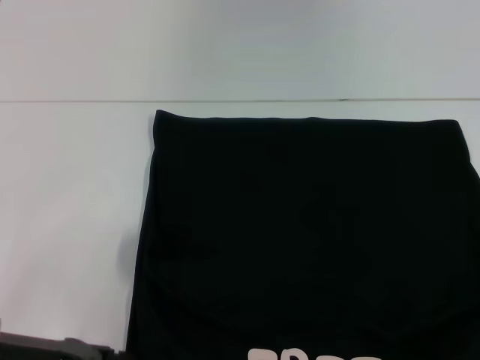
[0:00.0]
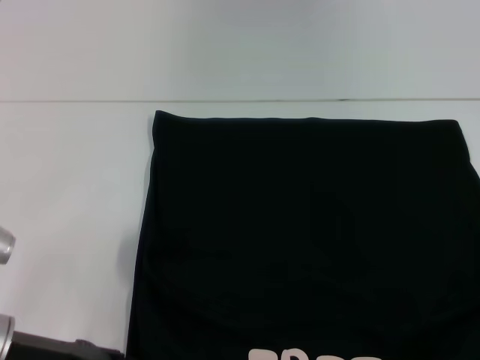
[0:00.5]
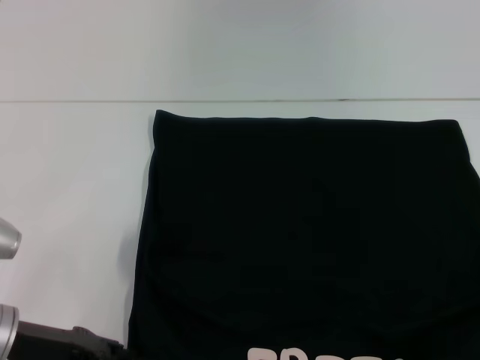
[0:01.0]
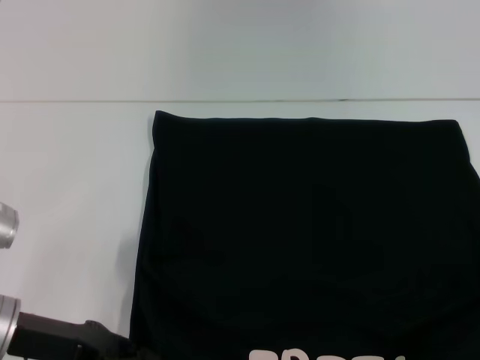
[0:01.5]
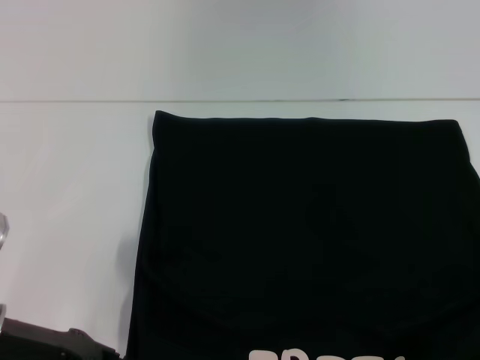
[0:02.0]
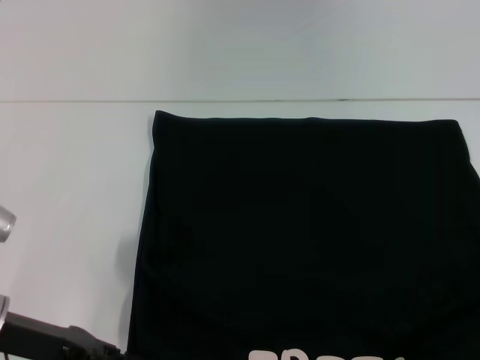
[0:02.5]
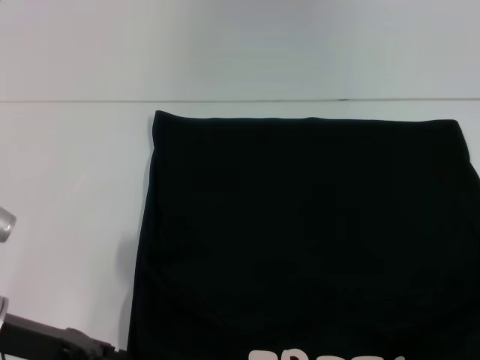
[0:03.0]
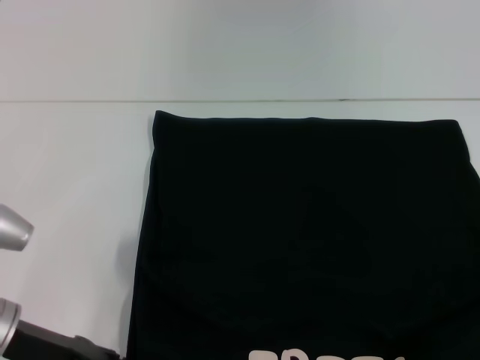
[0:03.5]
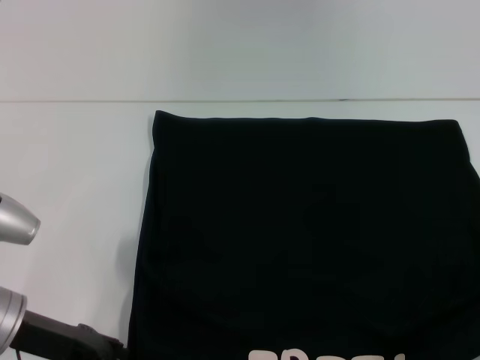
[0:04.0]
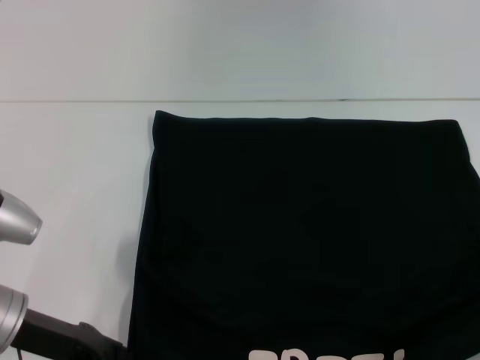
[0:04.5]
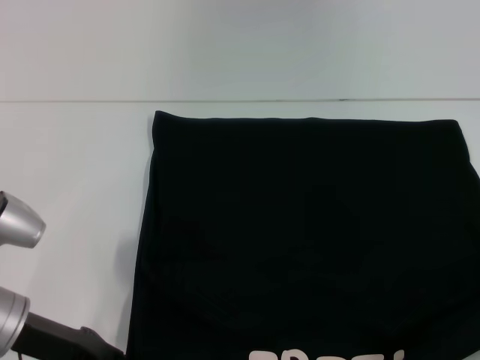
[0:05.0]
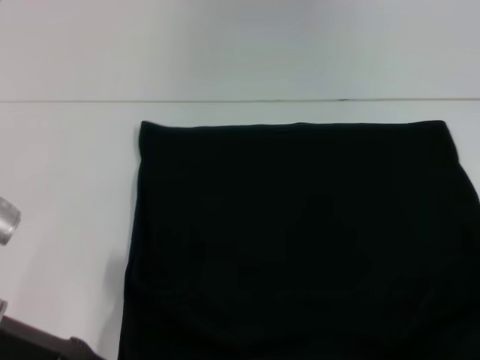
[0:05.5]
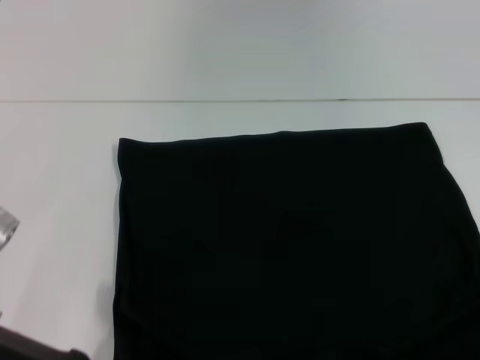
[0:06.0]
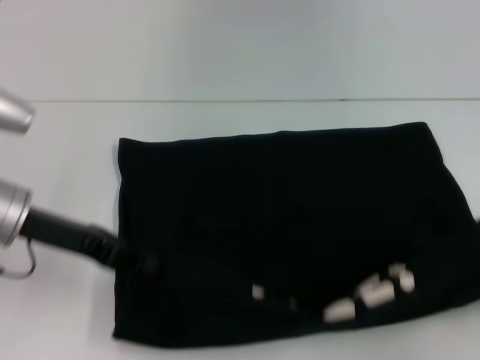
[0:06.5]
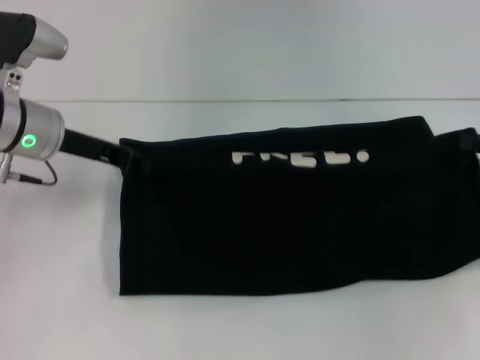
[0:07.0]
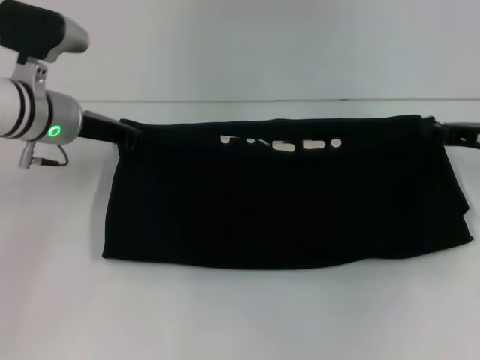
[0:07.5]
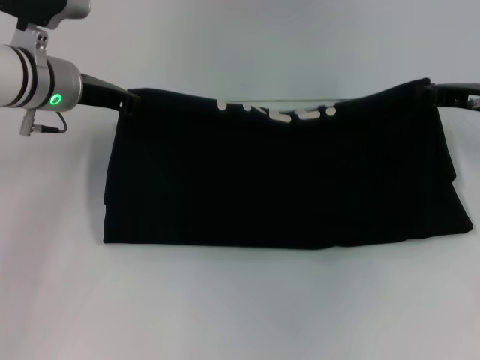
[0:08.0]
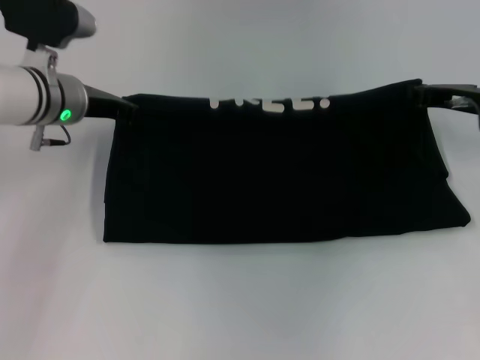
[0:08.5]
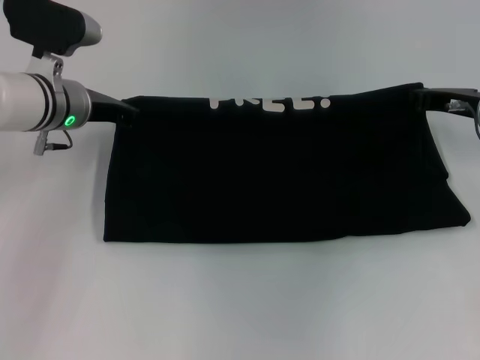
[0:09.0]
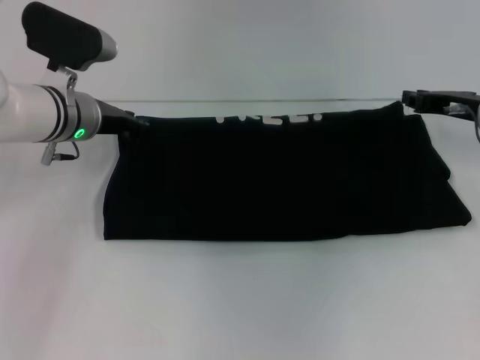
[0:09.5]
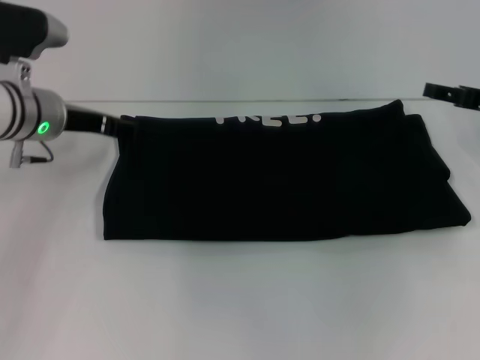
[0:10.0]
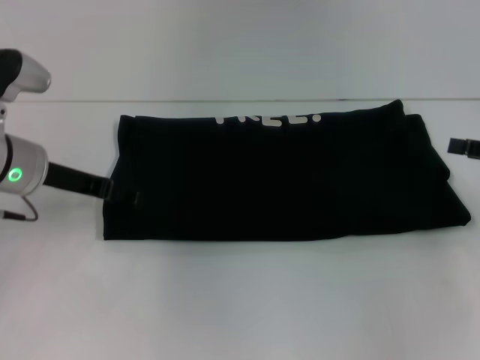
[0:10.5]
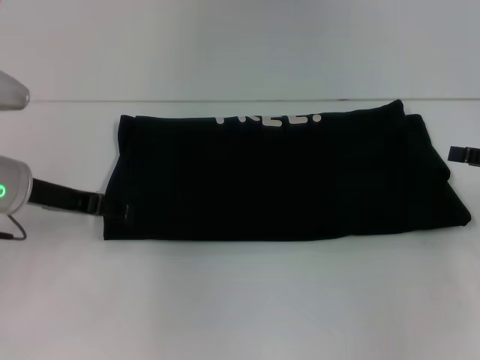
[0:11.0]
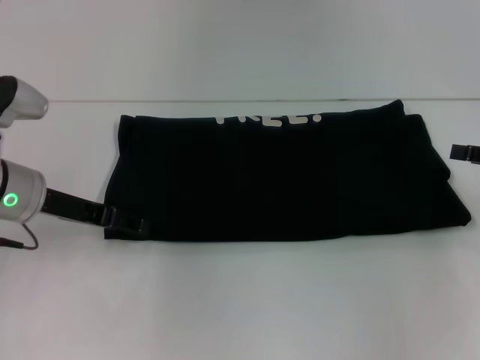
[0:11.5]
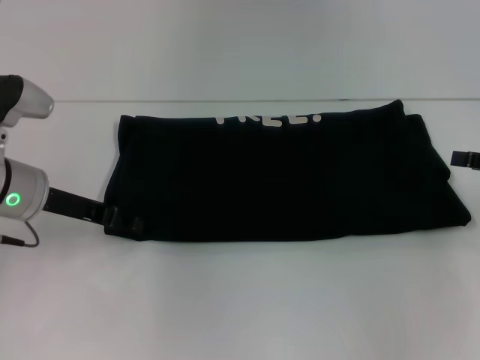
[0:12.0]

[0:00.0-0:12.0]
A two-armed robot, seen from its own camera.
Step, 0:00.0 to 0:09.5: Fold the clothes with your right hand.
0:00.0 to 0:02.0: The left gripper closes its fingers.
0:02.0 to 0:04.0: The left gripper opens.
0:04.0 to 0:06.0: The left gripper closes.
0:06.0 to 0:08.0: The right gripper travels forward and to the left by approximately 30 cm. Meanwhile the left gripper is displaced forward by approximately 20 cm.
0:08.0 to 0:10.0: The left gripper opens its fingers. The right gripper opens its fingers.
0:10.0 to 0:12.0: Both grippers travel together backward, about 5 cm.

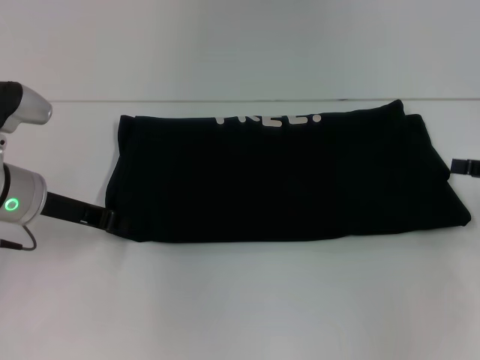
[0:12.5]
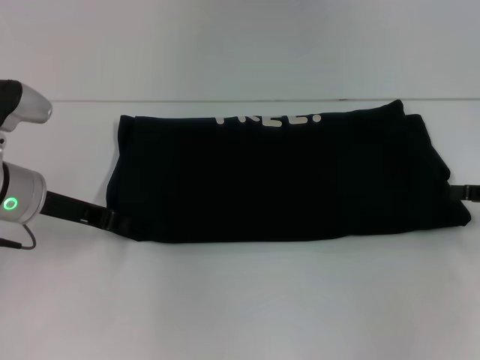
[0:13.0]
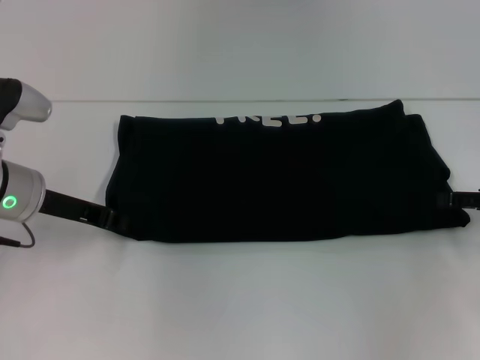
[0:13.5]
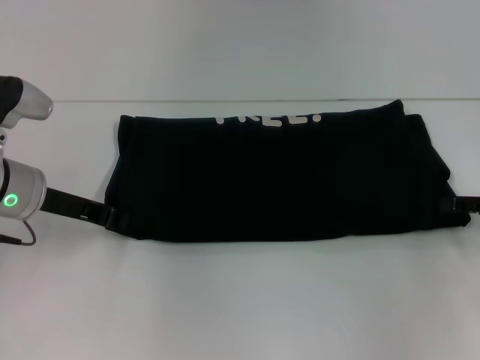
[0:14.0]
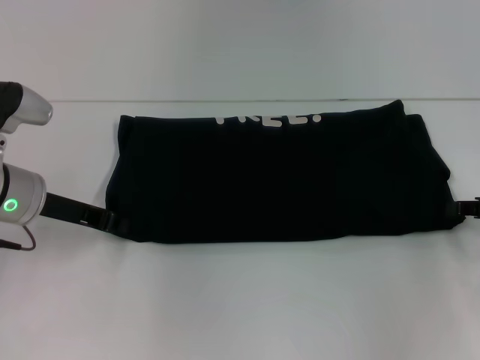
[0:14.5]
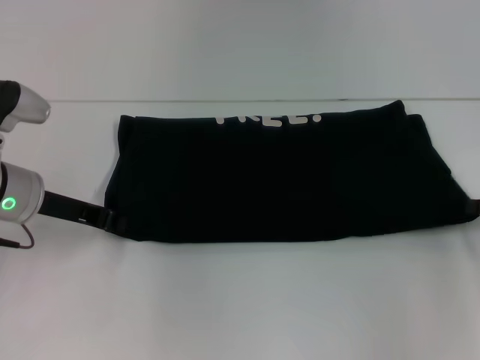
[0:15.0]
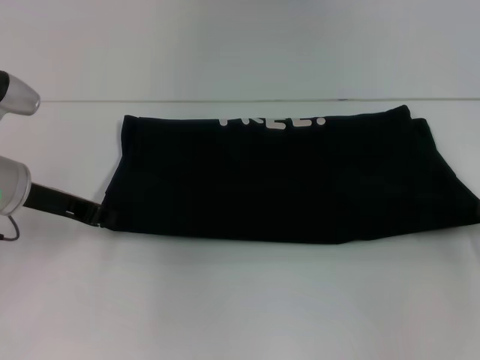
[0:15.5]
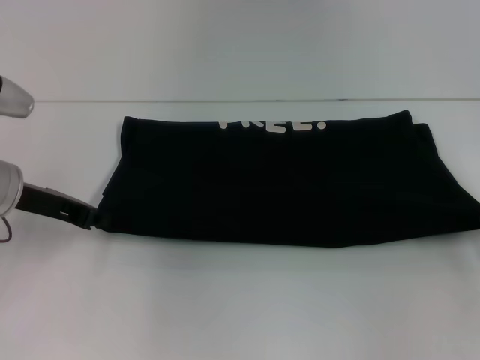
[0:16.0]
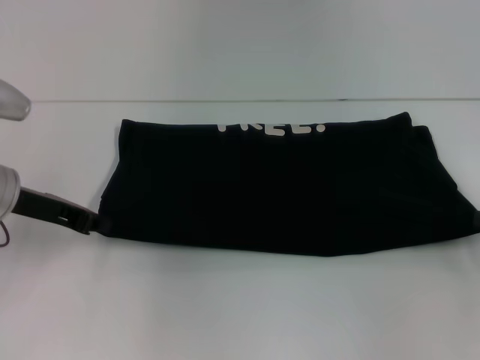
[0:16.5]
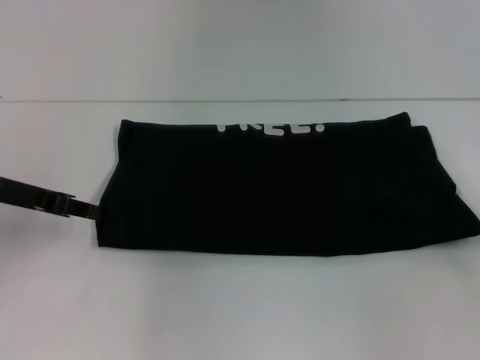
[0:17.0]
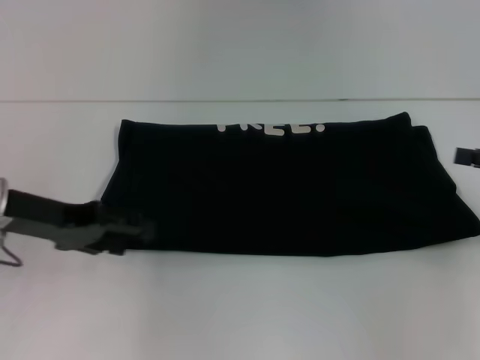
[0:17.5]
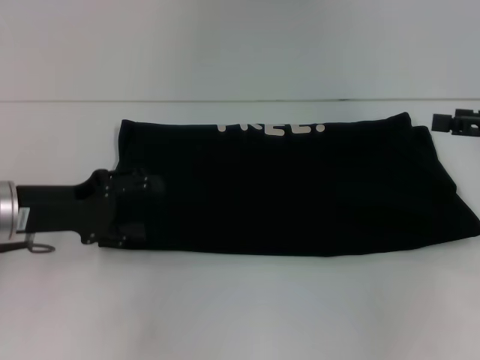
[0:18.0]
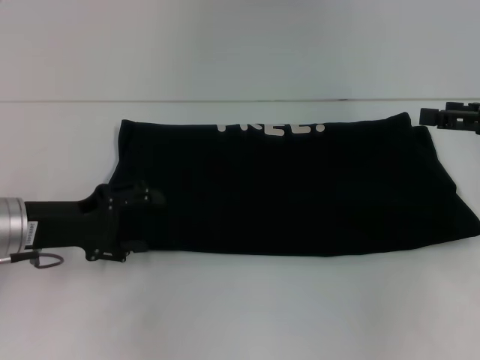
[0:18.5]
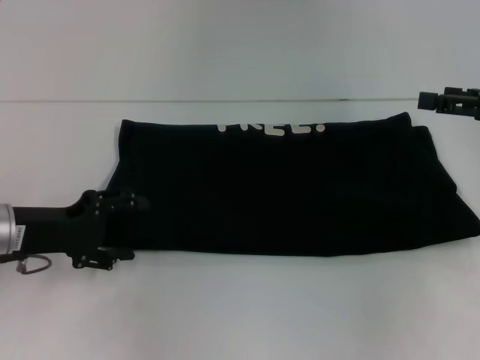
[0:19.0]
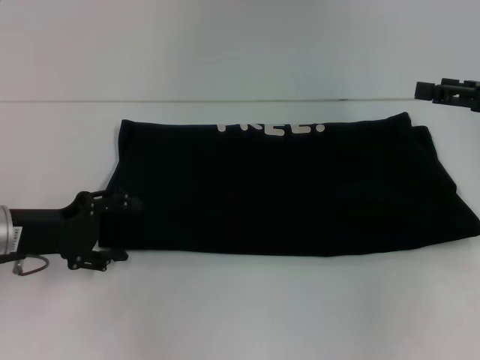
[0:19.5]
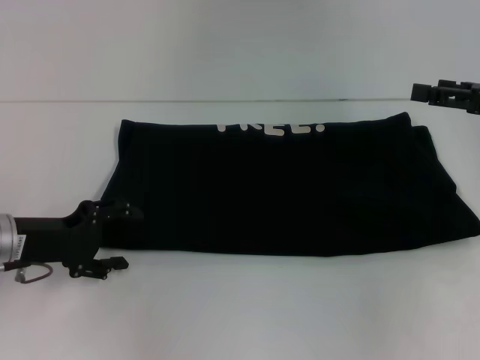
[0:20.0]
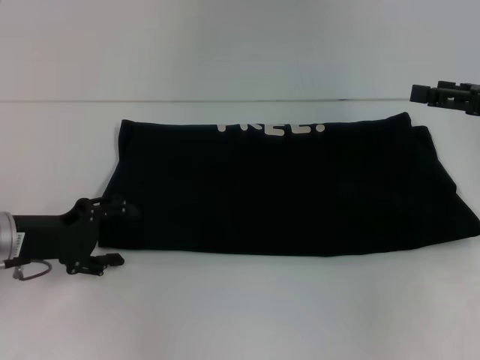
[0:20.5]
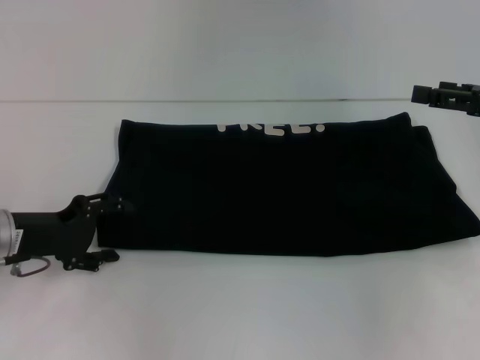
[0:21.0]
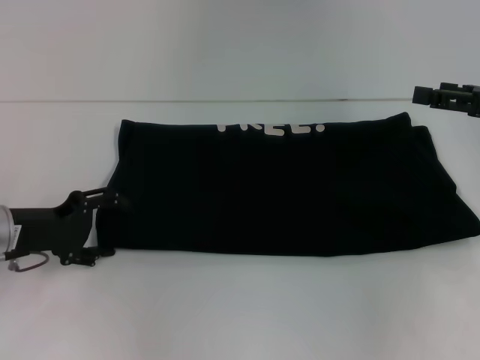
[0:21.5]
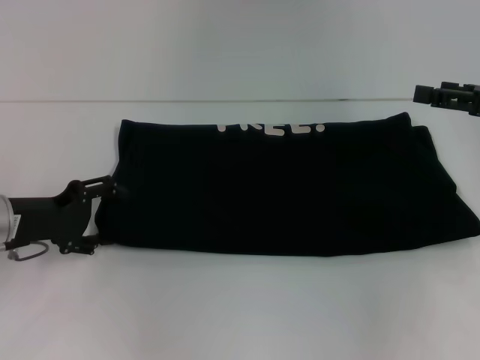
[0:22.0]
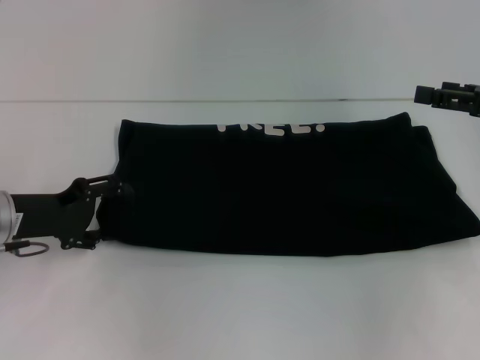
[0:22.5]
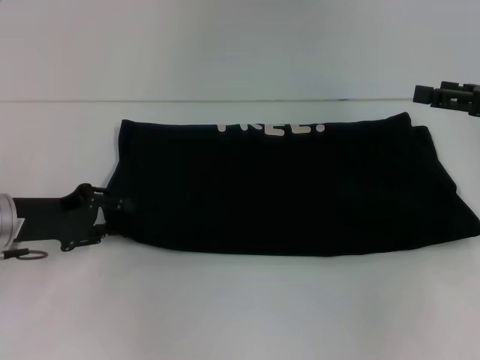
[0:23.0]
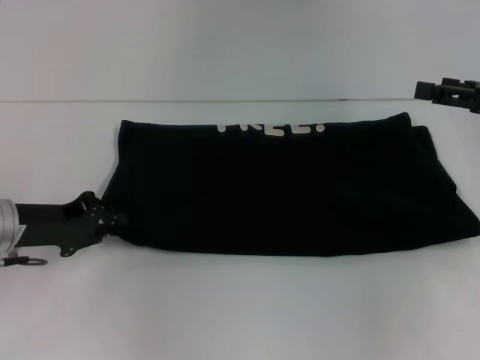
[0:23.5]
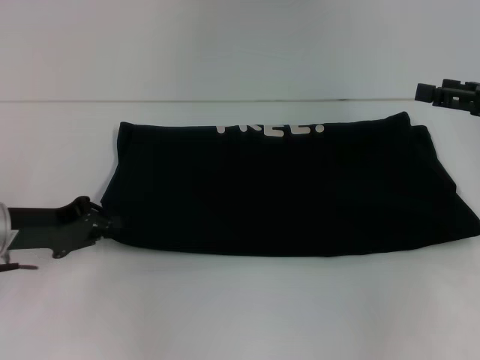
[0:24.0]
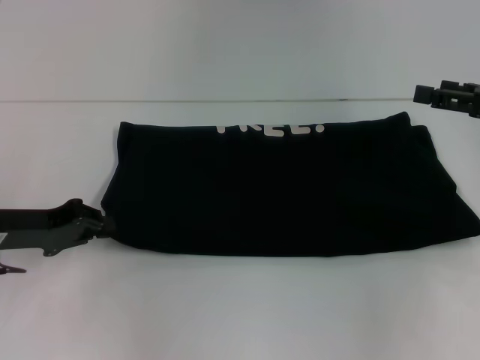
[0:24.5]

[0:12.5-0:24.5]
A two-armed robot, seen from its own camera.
0:12.5 to 0:14.5: The right gripper closes its fingers.
0:14.5 to 0:16.5: The right gripper closes.
0:16.5 to 0:18.5: The left gripper opens up; the right gripper goes approximately 10 cm upward and forward, and opens.
0:18.5 to 0:22.5: The grippers stay close to where they were, moving slightly.
0:22.5 to 0:24.5: The left gripper closes its fingers.

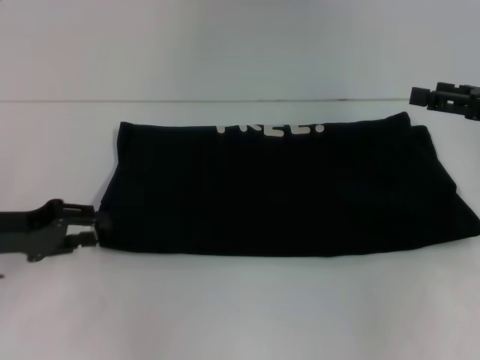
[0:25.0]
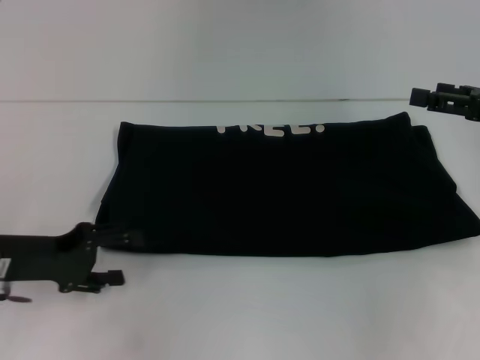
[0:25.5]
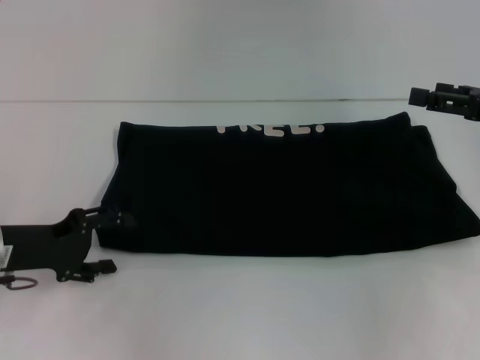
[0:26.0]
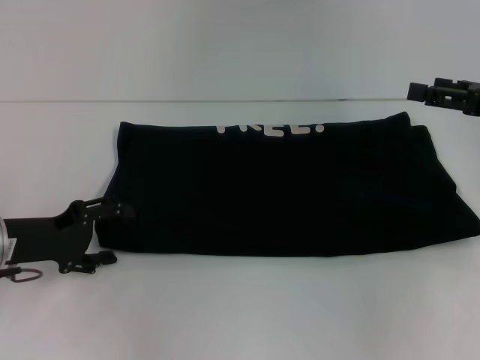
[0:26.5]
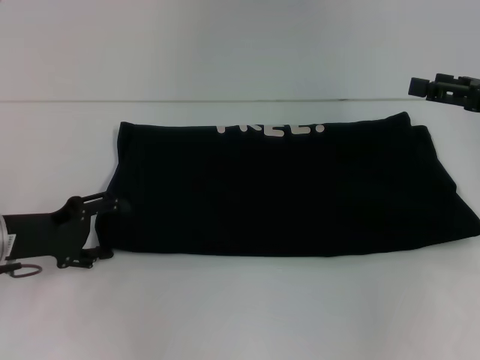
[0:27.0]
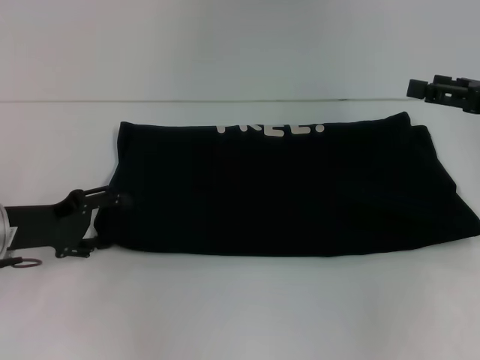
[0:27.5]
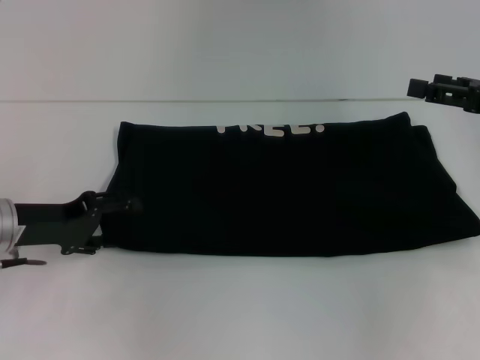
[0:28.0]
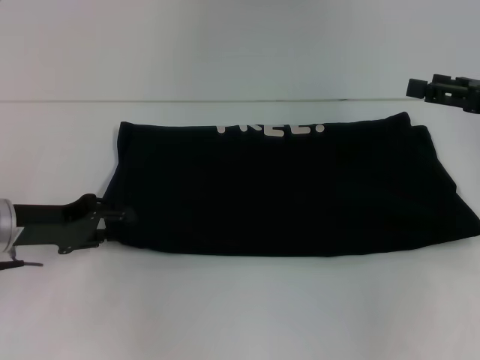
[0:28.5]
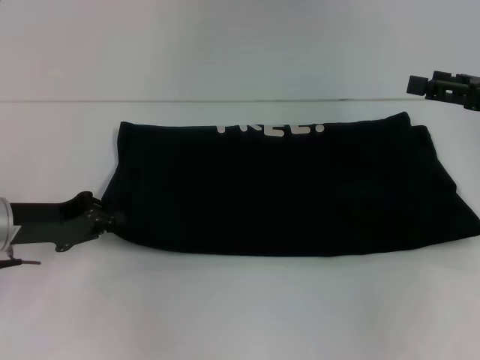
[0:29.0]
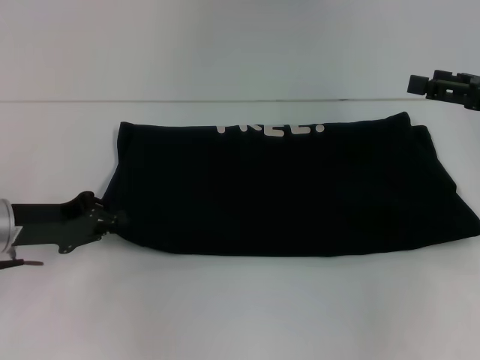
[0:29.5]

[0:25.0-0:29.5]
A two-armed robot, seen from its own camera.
0:25.0 to 0:27.0: The left gripper opens its fingers.
0:27.0 to 0:29.5: The left gripper closes.
